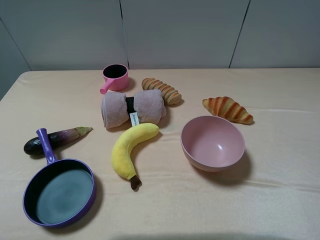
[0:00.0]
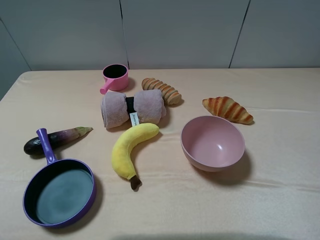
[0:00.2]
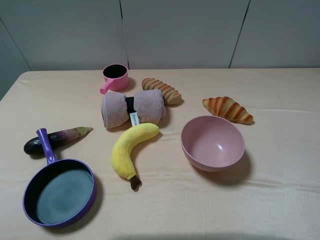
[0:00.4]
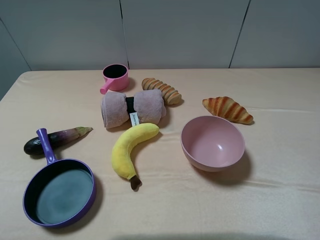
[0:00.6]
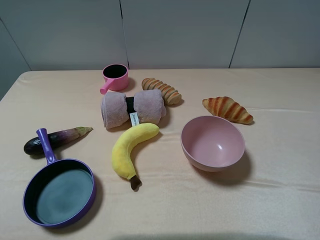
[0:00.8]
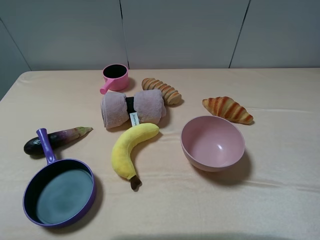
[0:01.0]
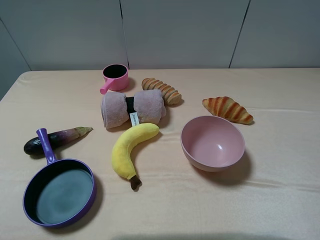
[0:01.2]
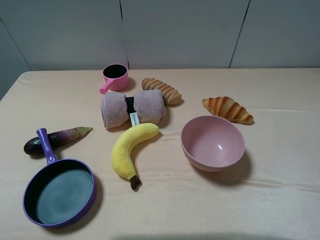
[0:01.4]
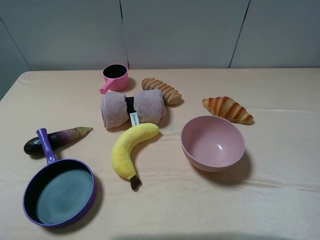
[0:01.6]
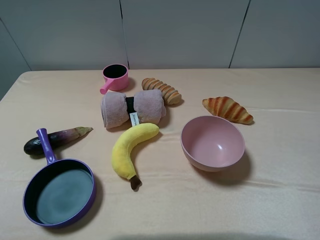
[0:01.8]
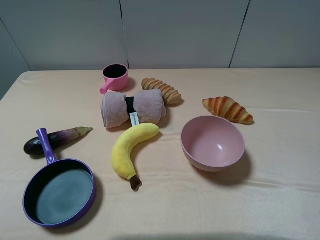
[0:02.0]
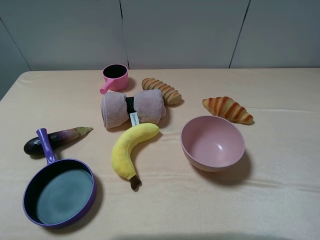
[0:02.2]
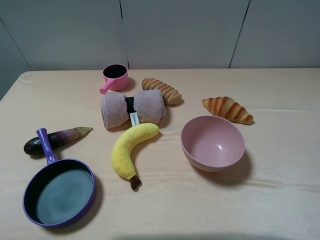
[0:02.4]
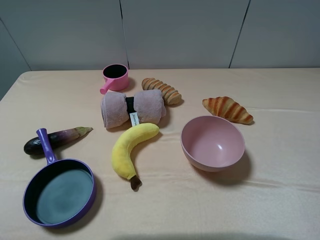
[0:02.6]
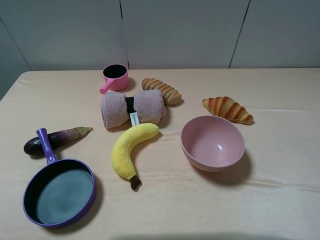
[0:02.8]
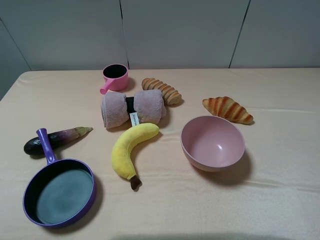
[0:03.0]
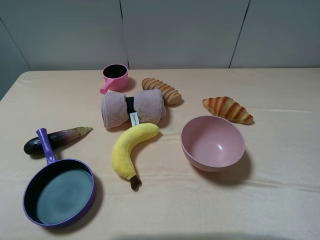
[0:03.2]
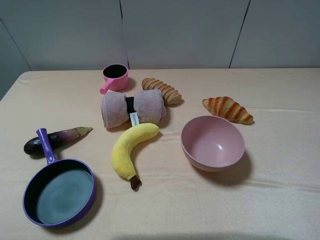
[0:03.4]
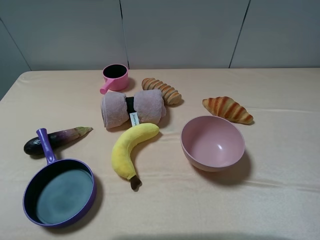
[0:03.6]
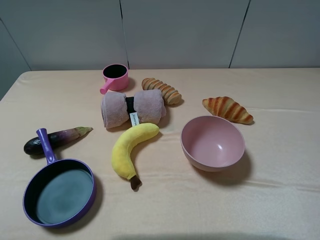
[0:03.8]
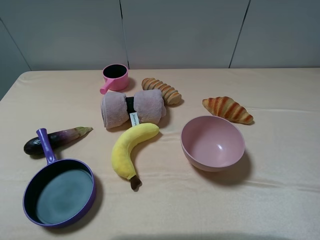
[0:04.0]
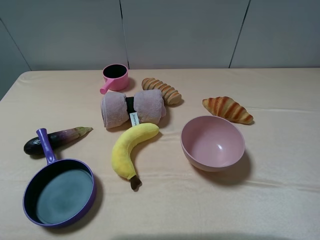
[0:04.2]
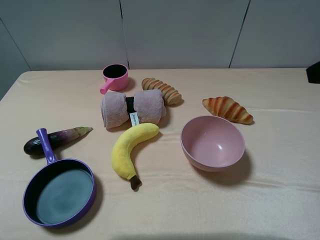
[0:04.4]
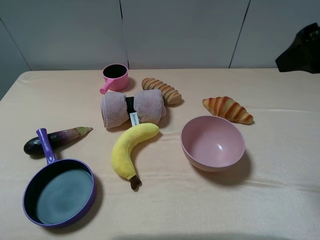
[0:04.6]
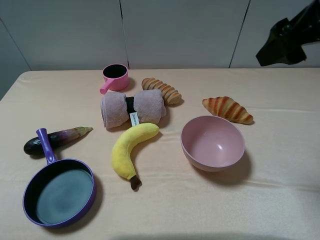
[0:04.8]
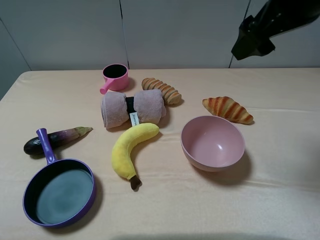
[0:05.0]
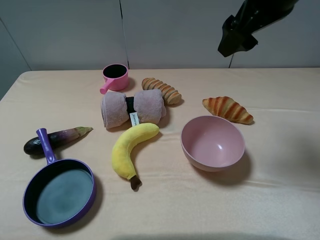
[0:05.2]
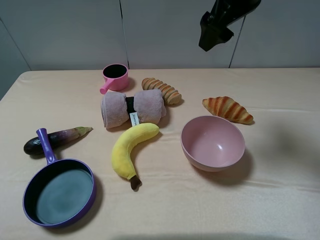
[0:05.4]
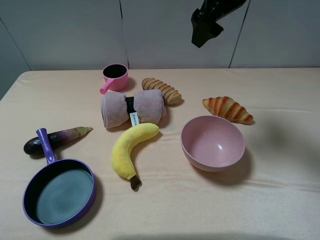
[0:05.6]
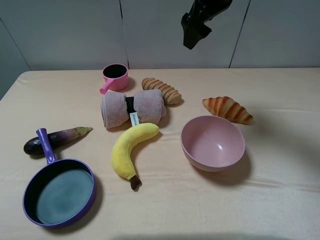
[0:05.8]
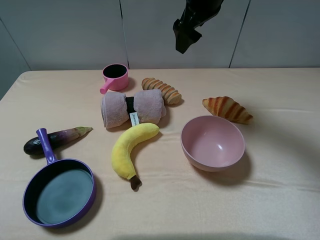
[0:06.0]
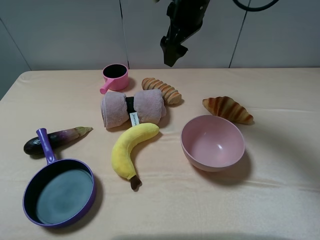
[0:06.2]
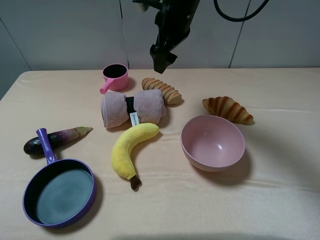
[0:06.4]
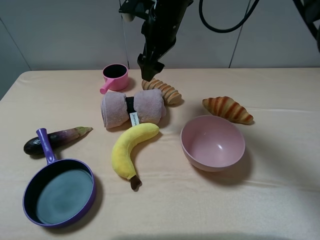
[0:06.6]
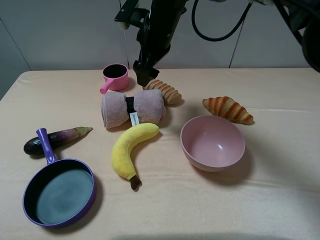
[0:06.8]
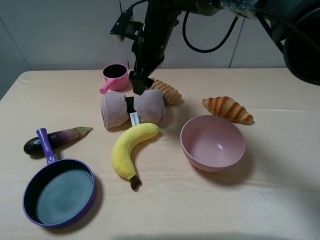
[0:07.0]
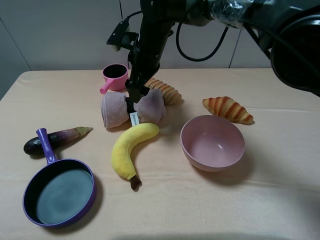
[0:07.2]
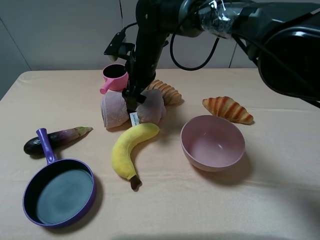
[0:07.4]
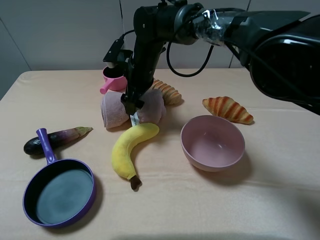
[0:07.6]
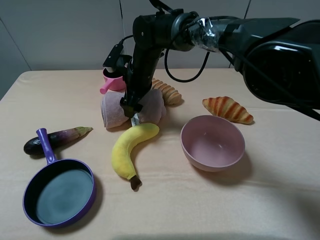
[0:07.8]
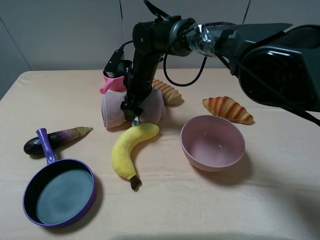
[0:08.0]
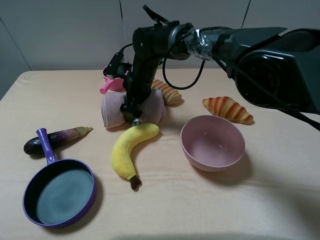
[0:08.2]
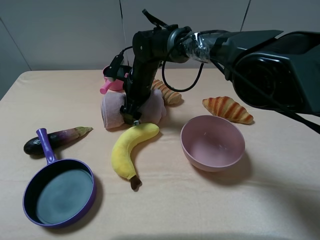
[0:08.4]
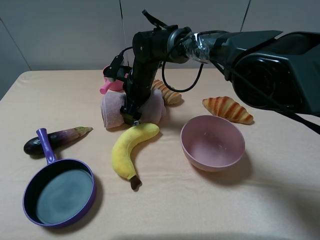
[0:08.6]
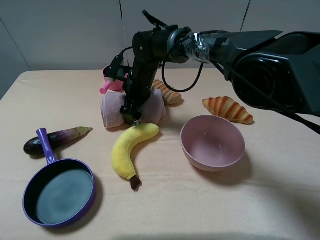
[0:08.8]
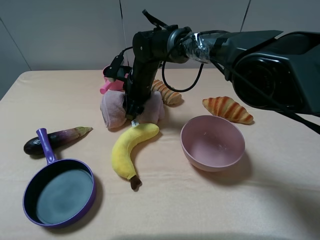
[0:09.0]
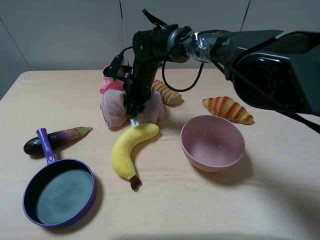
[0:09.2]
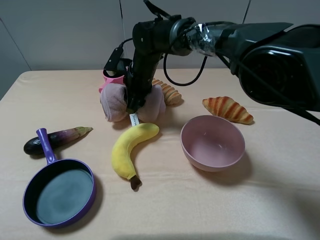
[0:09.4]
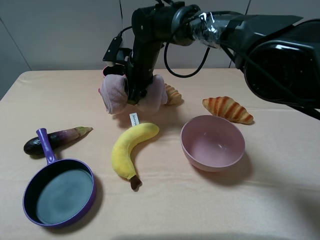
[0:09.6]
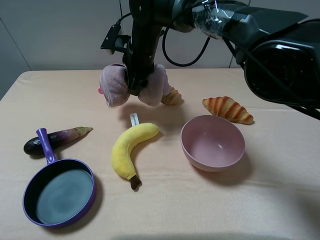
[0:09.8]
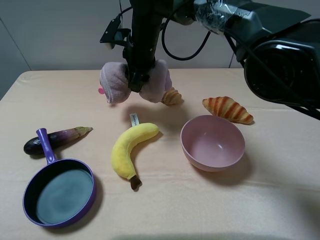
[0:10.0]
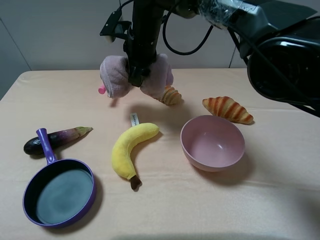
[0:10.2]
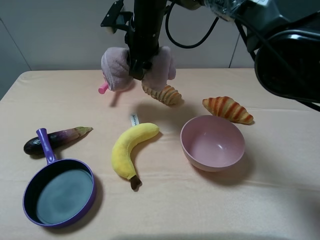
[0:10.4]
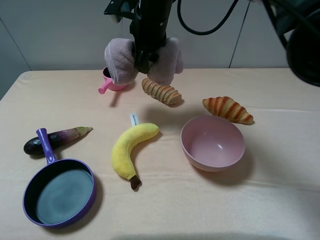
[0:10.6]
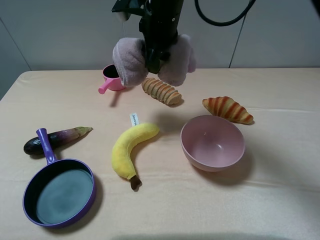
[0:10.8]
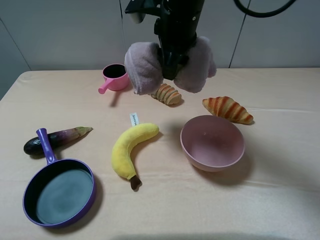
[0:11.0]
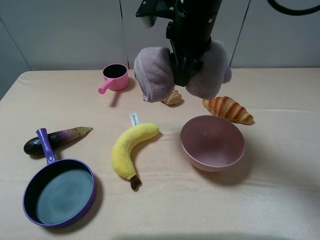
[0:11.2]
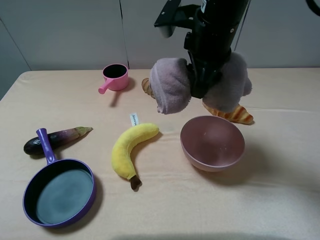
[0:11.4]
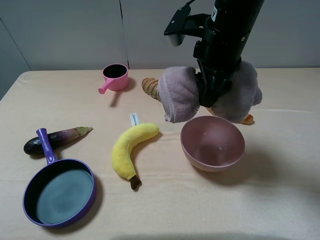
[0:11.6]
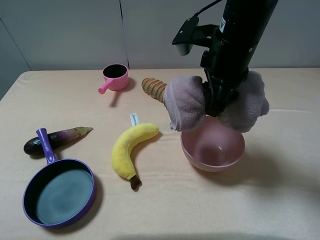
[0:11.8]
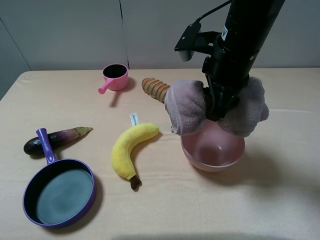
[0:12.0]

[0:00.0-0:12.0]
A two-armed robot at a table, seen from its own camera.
Task of the whole recording: pick up an item with a gripper and place it in a random container on the table.
Step, 0:00.0 to 0:09.0: Grasp the pink towel with the right gripper.
0:00.0 to 0:01.6: Neither gripper changes place.
0:04.4 to 0:06.0: The right gripper shifts about 30 cm forward and to the left.
0:06.0 to 0:07.6: The right gripper travels downward and to the left by approximately 20 cm.
0:07.6 to 0:09.0: The right gripper closes its fingers.
0:09.0 to 0:10.4: The right gripper moves upward, some 15 cm.
0:10.4 to 0:12.0: The right gripper heads to the right and backward, covering some 20 cm.

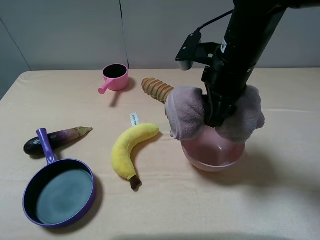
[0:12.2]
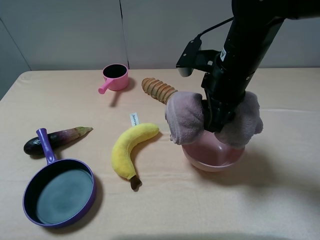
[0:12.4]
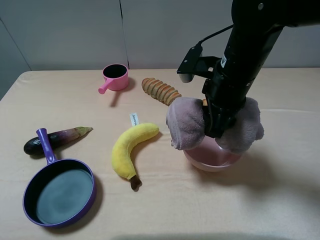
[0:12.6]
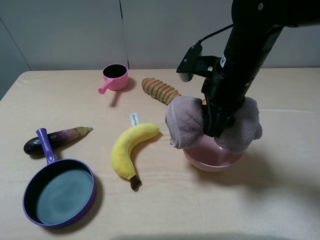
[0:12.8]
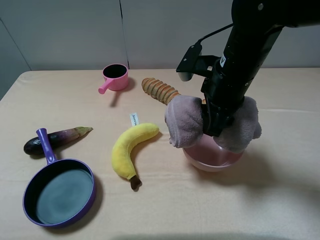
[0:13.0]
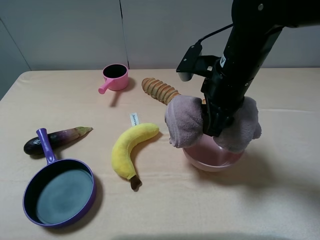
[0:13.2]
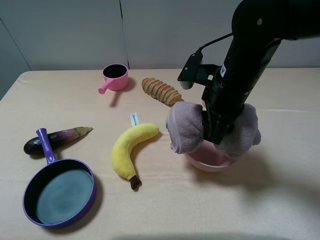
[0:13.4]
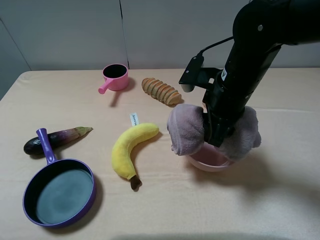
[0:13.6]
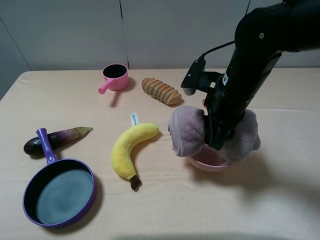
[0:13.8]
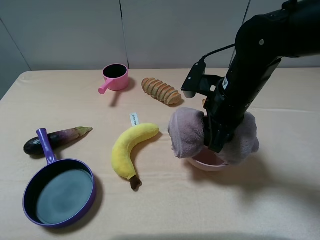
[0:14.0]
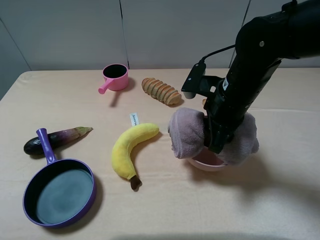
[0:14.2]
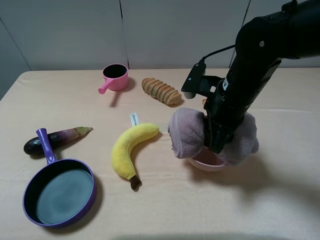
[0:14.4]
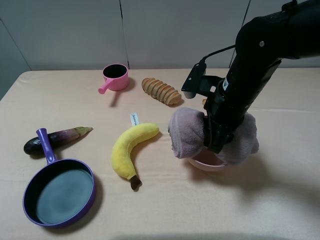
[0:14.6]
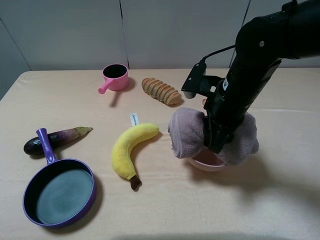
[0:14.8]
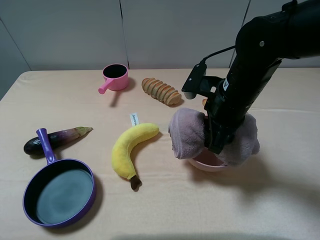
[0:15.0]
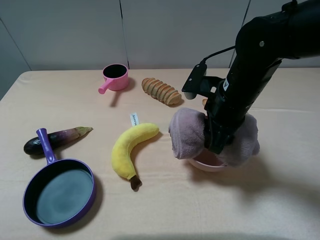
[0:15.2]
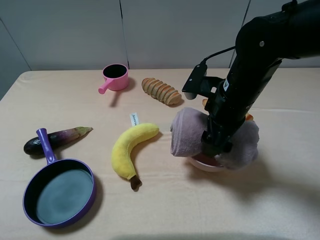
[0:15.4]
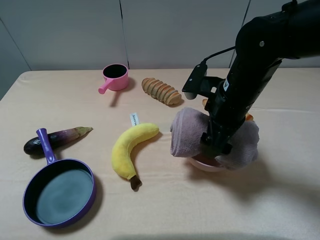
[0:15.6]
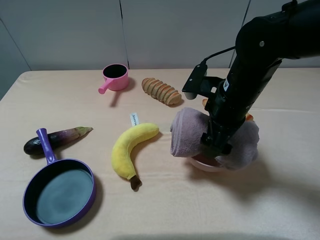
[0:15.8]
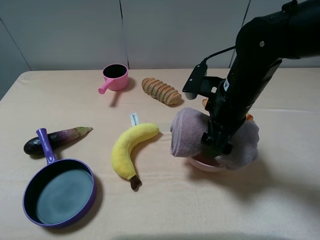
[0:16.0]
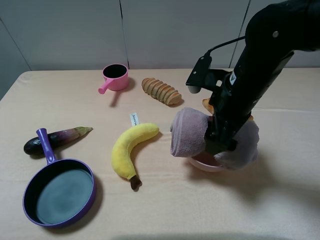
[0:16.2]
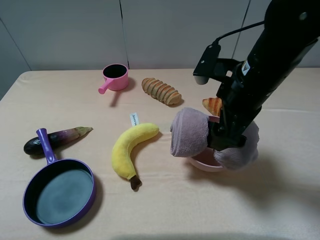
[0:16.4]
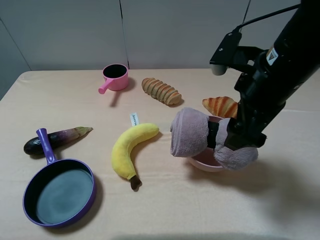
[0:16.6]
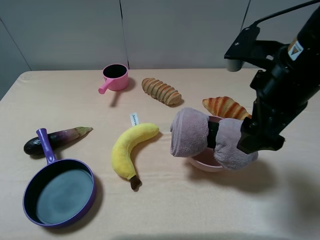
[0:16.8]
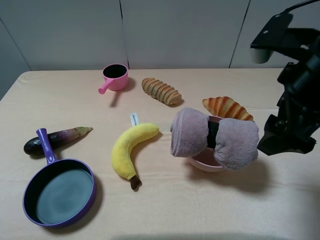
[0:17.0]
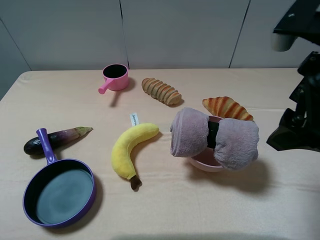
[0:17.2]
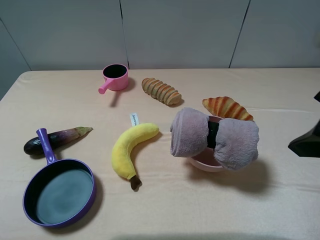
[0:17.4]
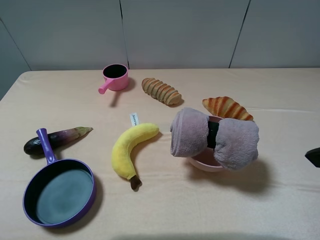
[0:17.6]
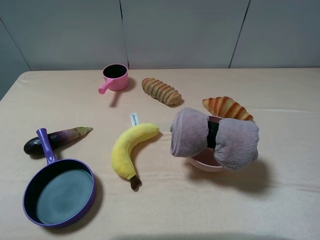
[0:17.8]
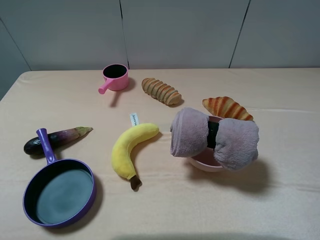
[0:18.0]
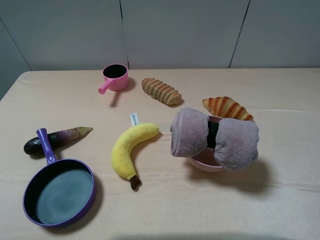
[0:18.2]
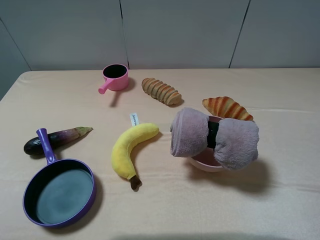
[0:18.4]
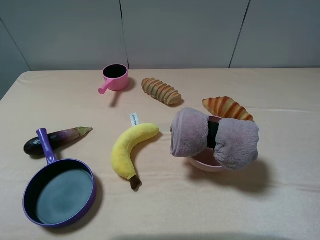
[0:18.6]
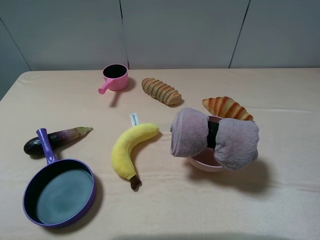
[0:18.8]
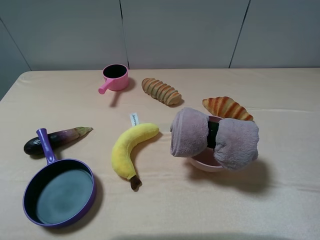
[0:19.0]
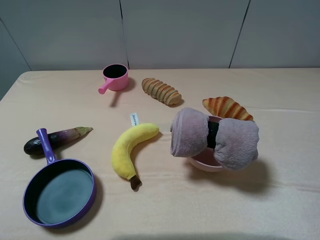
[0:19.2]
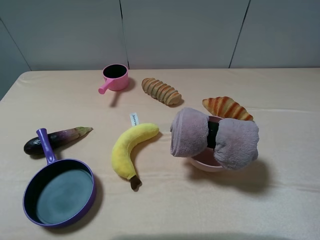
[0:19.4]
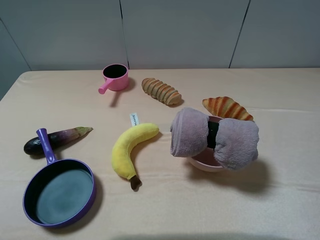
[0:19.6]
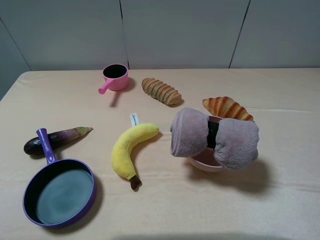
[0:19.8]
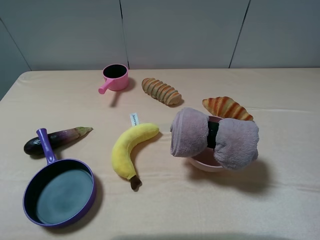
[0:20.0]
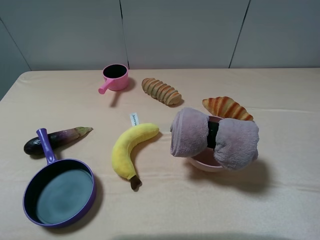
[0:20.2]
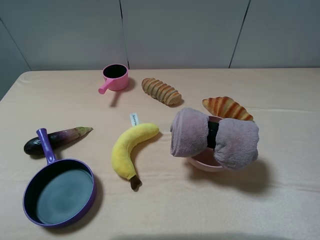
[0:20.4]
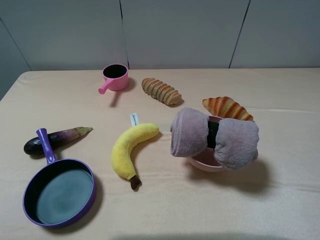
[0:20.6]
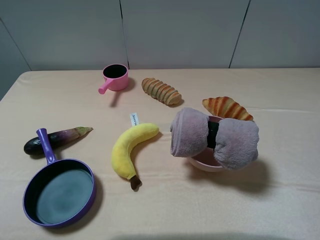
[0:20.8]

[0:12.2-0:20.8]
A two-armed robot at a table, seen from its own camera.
Task of the whole recording: pick up an item with a gripper and place it in a random container on the table.
Step, 0:12.2 to 0:16.0: Place the pink towelinto the pink bowl with the right gripper.
0:12.2 to 0:15.0: There are only small adjustments of the grippers.
0:15.0 to 0:16.6: The right gripper goes approximately 5 cm upward, and opens its fingers.
0:16.6 to 0:18.0: The right gripper heads backward, to the right and upward, covering some 20 cm.
